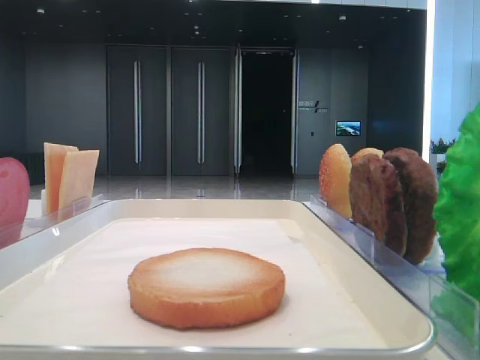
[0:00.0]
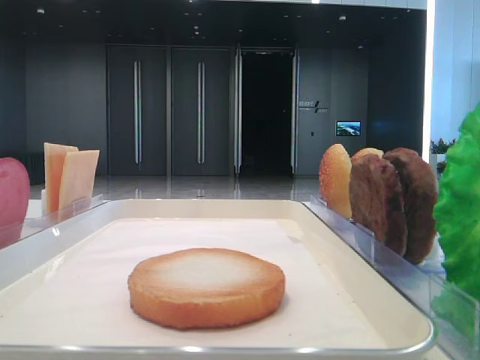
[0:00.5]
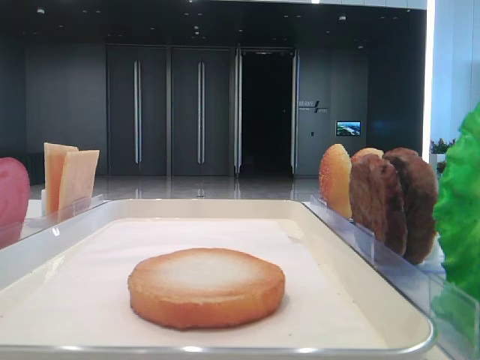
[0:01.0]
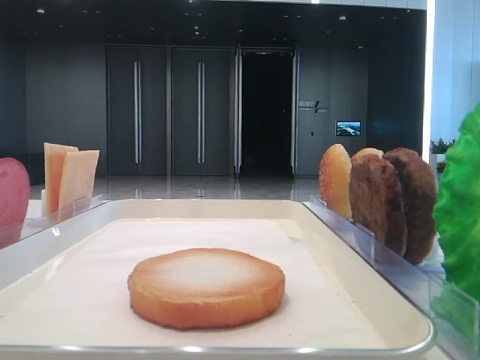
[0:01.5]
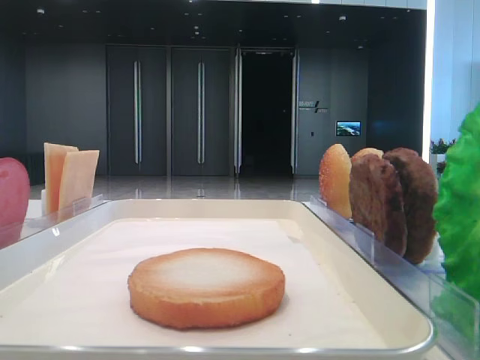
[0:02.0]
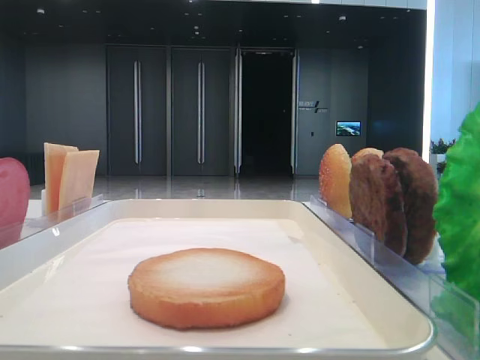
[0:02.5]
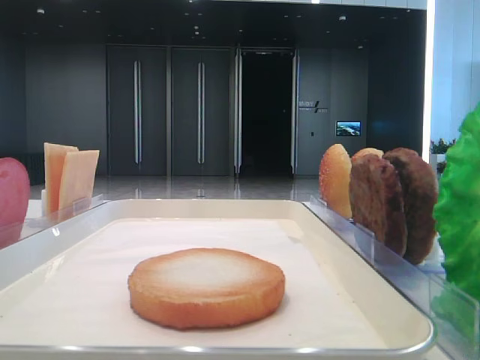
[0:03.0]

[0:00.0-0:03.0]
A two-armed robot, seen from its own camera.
0:01.5 to 0:03.0: Neither gripper changes place.

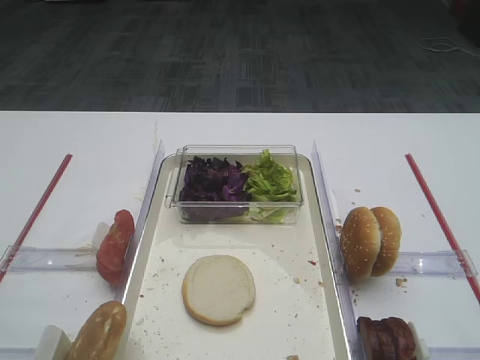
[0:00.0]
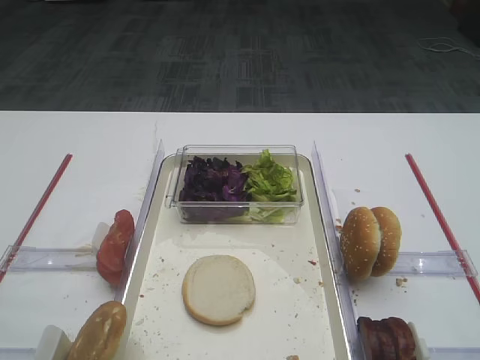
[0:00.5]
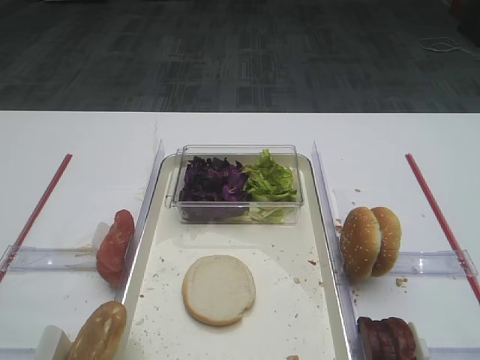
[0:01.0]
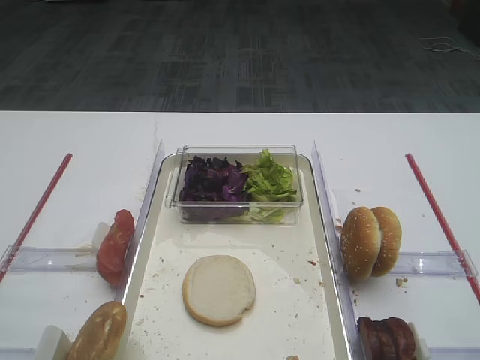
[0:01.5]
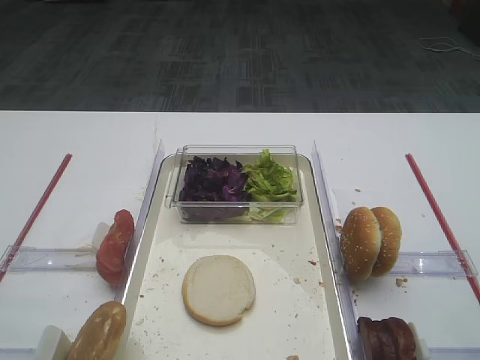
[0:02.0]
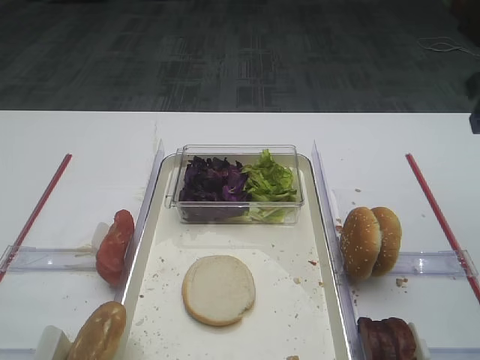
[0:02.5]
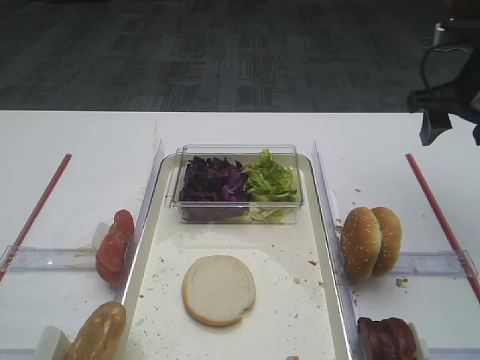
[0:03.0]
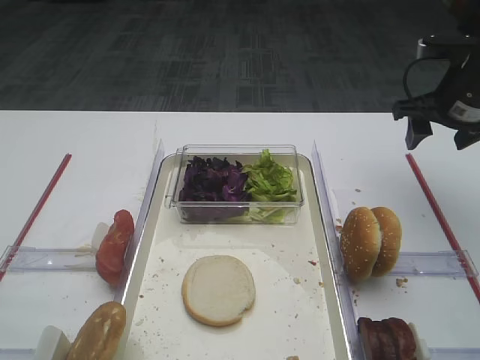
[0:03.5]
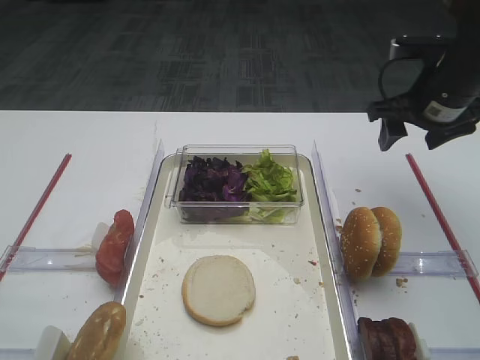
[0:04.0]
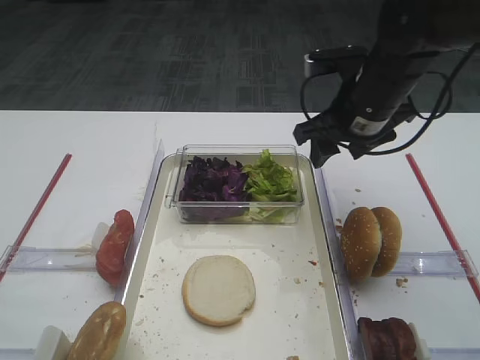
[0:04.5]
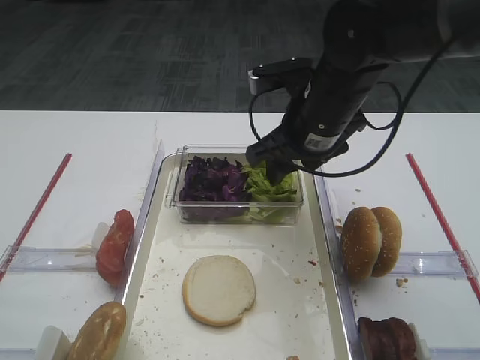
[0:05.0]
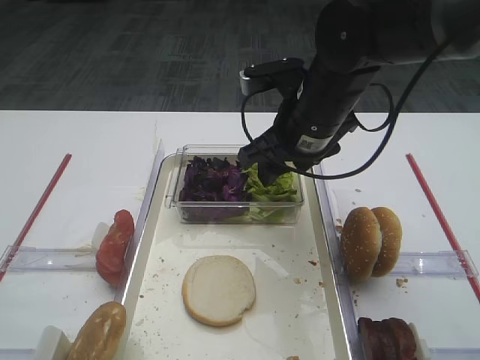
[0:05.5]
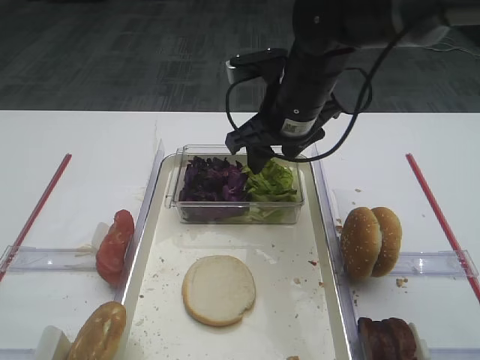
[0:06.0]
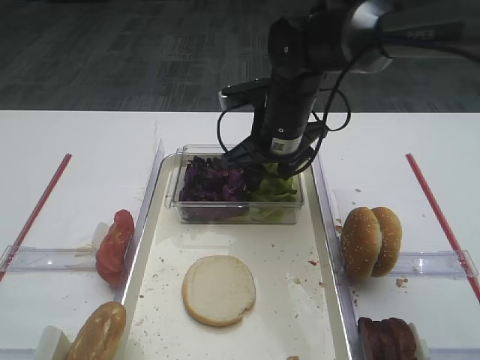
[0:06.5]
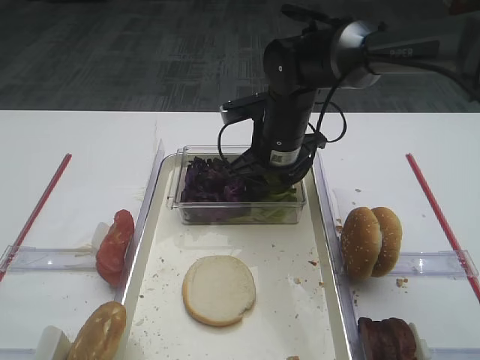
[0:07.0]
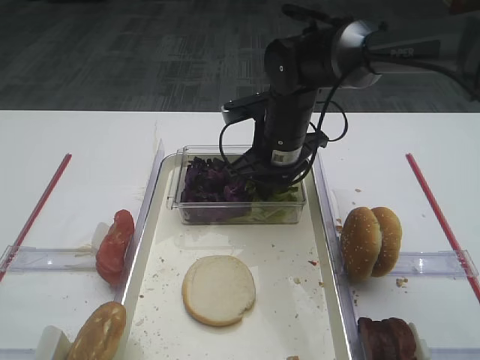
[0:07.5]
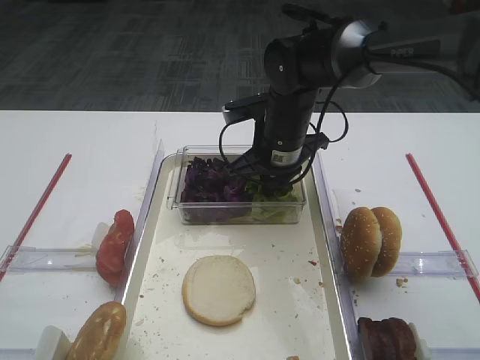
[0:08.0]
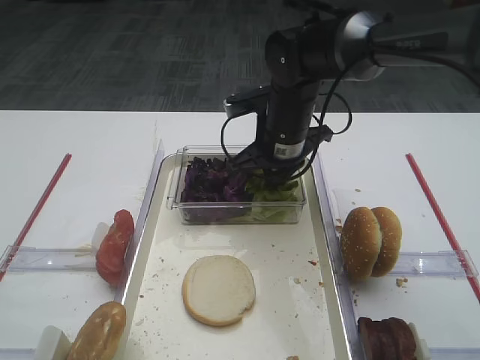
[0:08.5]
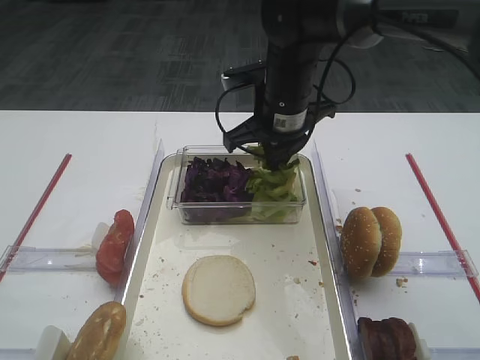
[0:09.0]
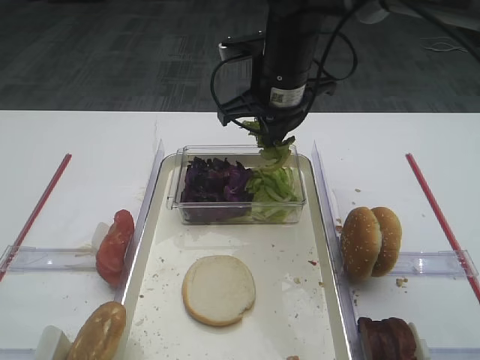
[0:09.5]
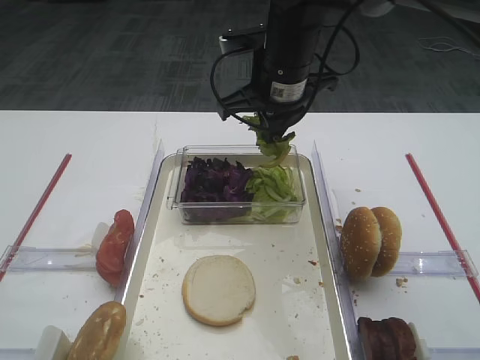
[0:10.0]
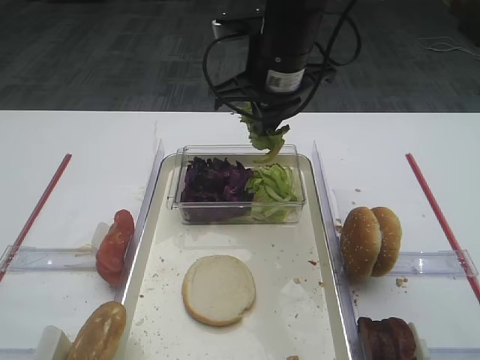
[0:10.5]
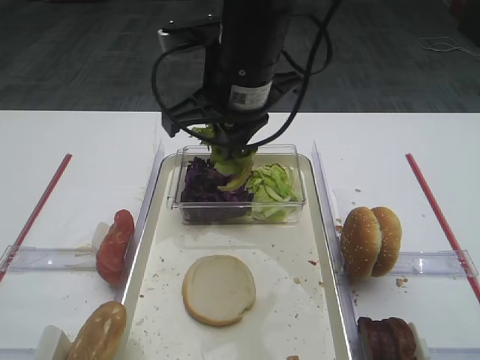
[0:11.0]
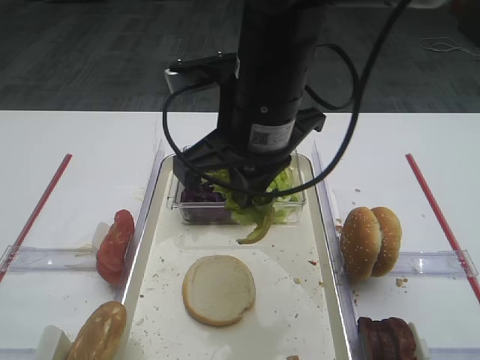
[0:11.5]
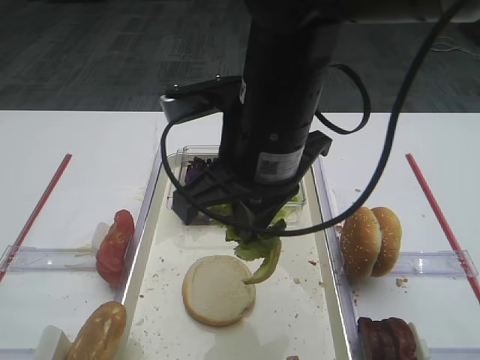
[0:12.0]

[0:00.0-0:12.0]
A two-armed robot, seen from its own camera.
Step, 0:00.0 to 0:09.5: Pick up the lettuce leaf with the right gripper.
0:02.0 to 0:04.0: The right gripper shifts approximately 30 cm forward and downward.
0:04.0 to 0:06.0: The right gripper travels to the left by roughly 20 cm.
0:06.0 to 0:08.0: The right gripper is displaced downward by about 5 cm, and closes.
0:08.0 to 0:10.0: The right gripper shifts roughly 10 cm upward.
0:10.0 to 0:12.0: The right gripper heads backward, covering approximately 15 cm.

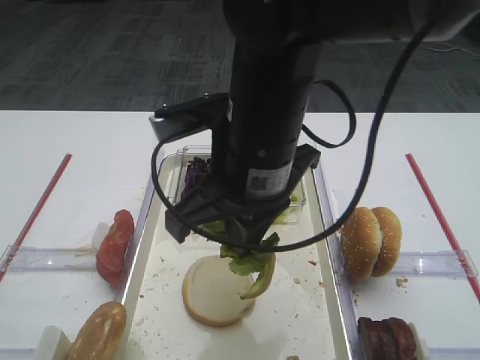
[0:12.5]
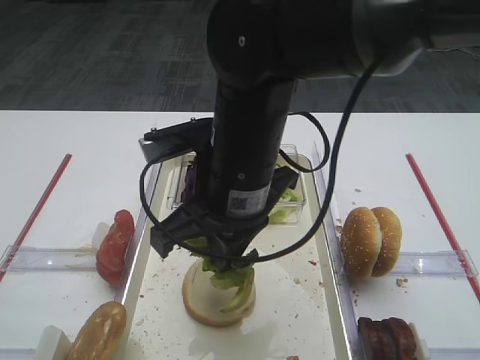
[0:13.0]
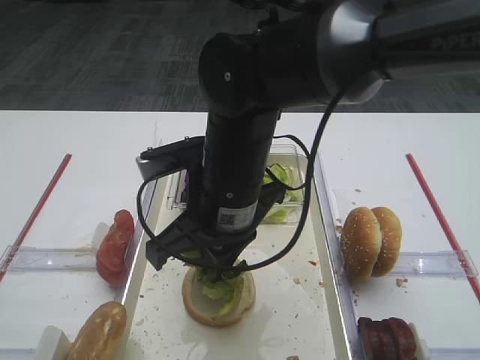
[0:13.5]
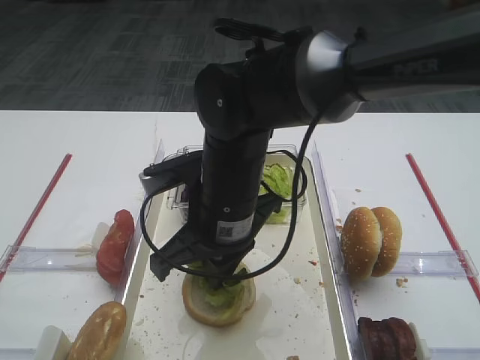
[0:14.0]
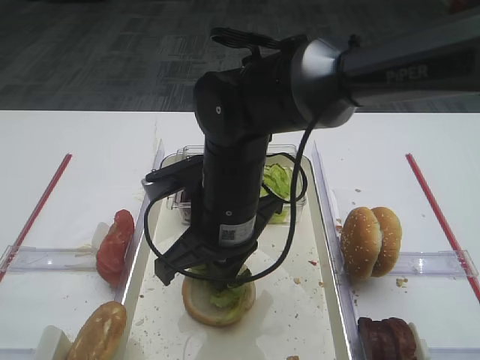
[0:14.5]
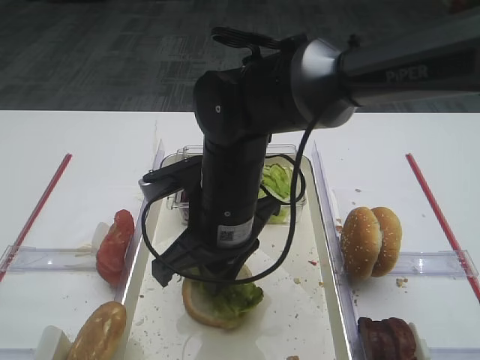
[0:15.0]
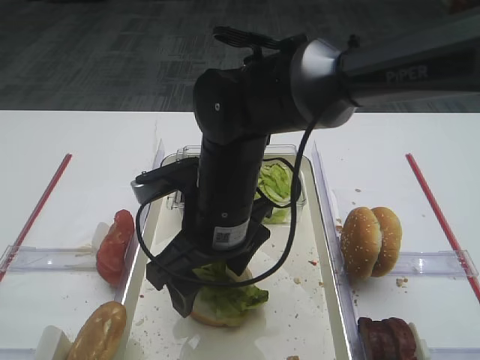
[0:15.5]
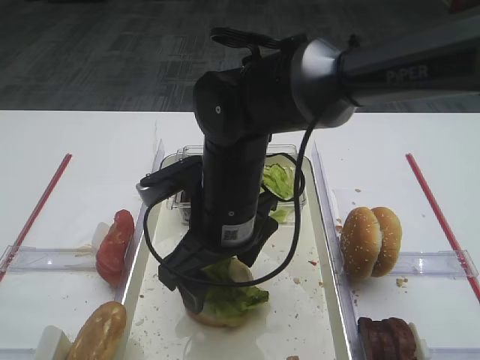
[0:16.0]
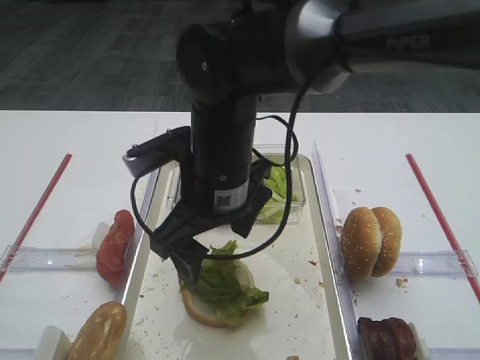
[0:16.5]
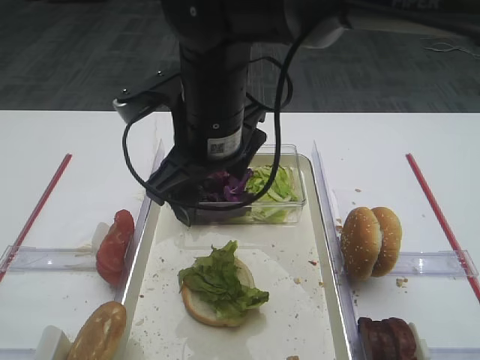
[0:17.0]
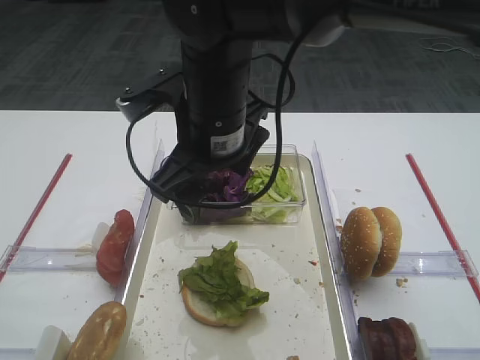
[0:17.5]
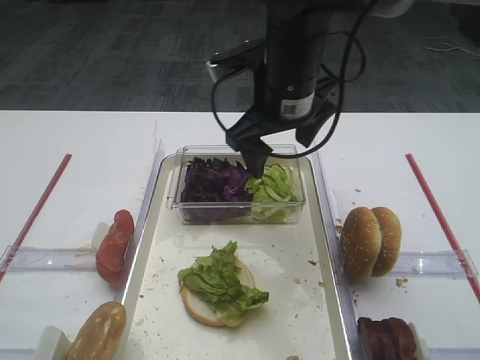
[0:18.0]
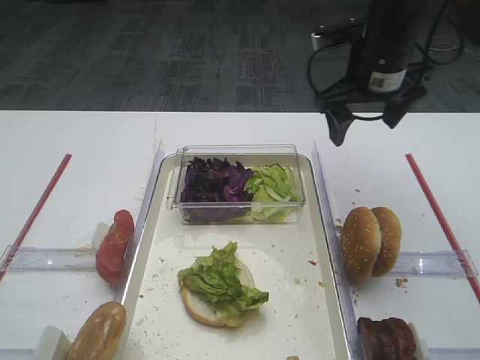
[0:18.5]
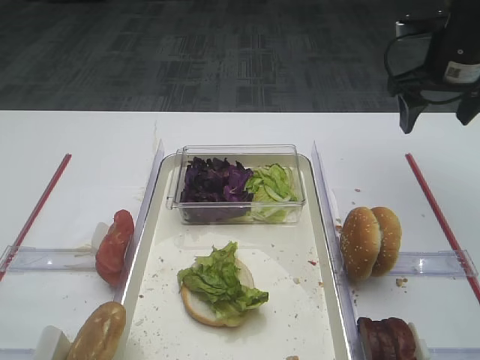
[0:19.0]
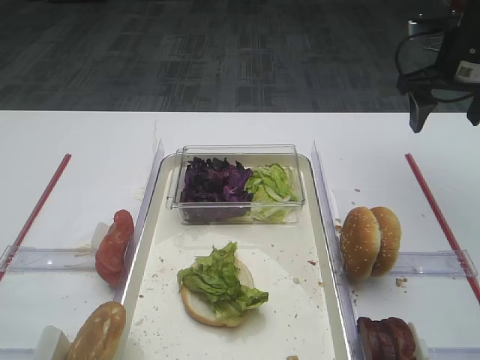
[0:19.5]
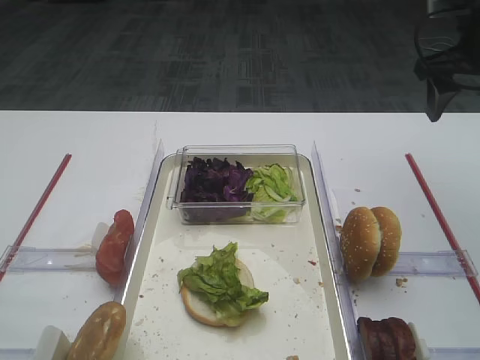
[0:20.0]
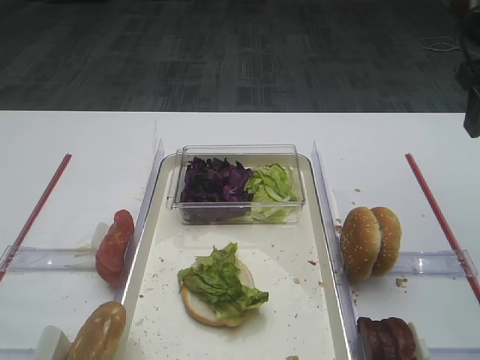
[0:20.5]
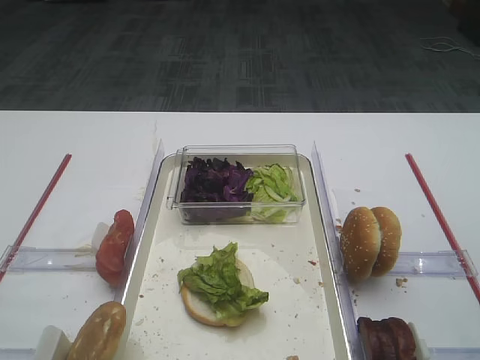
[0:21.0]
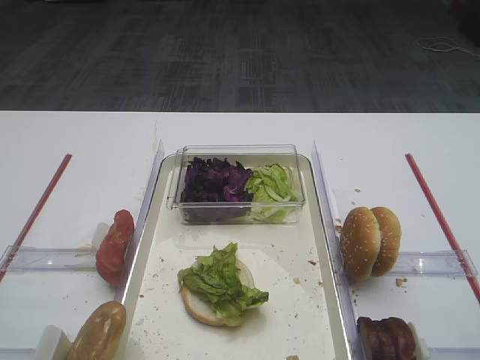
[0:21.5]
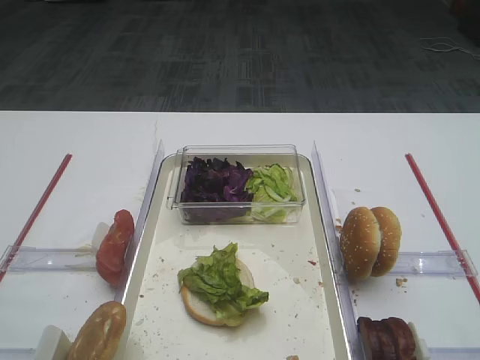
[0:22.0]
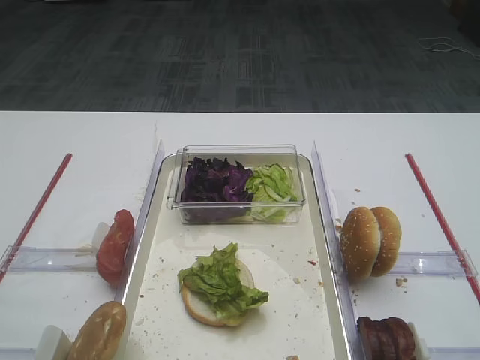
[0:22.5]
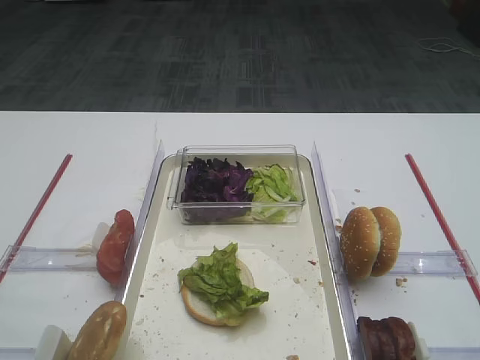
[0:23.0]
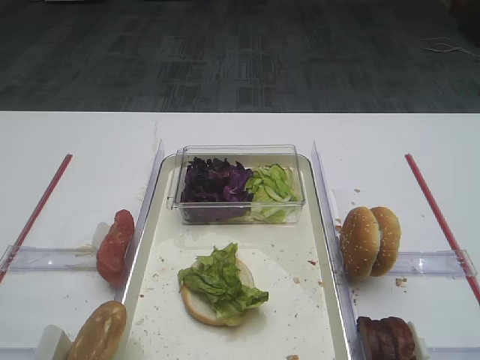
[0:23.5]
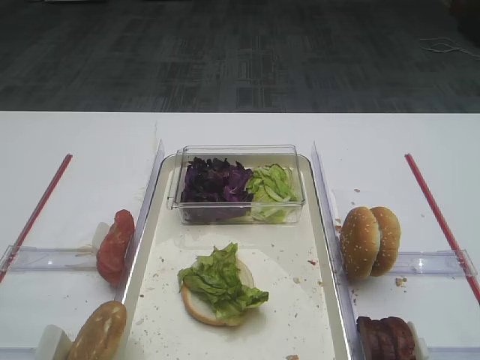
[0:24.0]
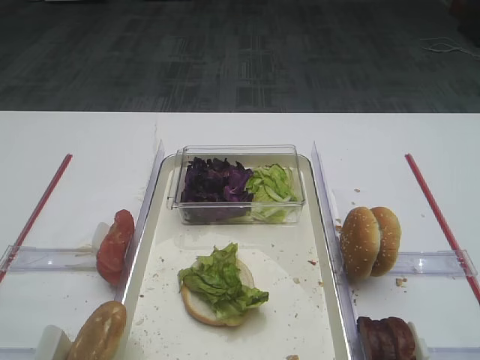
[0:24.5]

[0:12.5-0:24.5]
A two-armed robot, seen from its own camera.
Step, 0:12.5 to 0:16.5: Place the lettuce leaf on the bread slice with the right gripper.
0:12.5 to 0:14.5: The right gripper travels downward by about 10 cm.
0:14.5 to 0:16.5: The right gripper opens up.
0:16.5 to 0:18.5: The right gripper moves to the right and forward, approximately 25 cm.
0:18.5 to 0:20.5: The right gripper goes roughly 15 cm to the right, backward and upward.
0:20.5 to 0:22.5: The right gripper heads backward, covering about 30 cm.
0:22.5 to 0:24.5: Both grippers stay about where they are.
